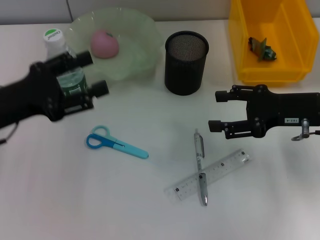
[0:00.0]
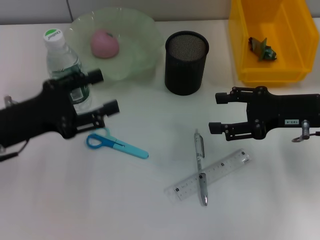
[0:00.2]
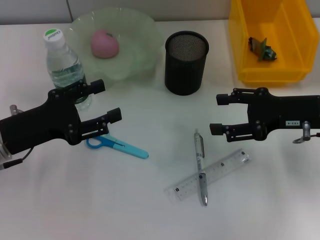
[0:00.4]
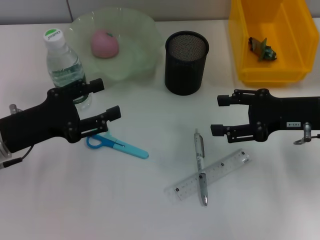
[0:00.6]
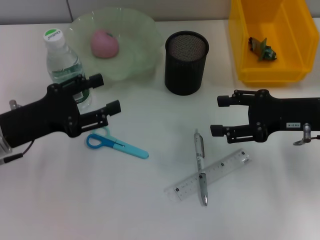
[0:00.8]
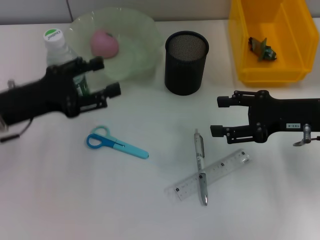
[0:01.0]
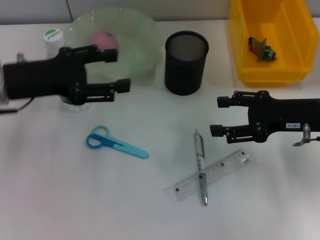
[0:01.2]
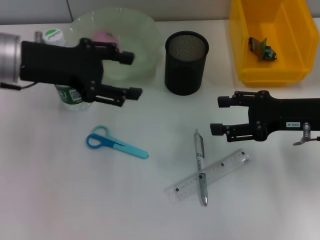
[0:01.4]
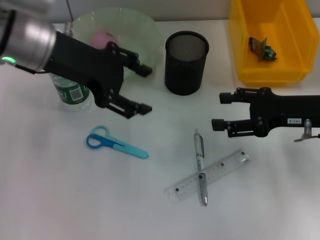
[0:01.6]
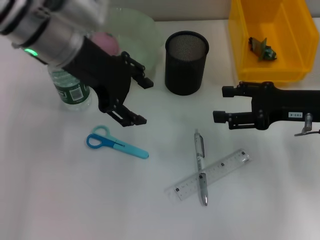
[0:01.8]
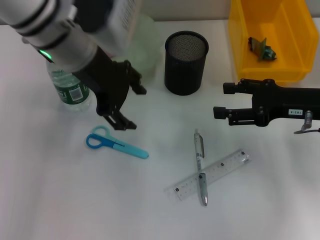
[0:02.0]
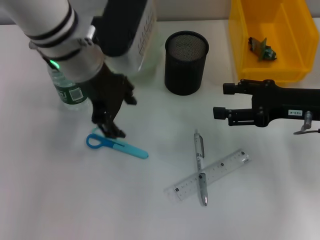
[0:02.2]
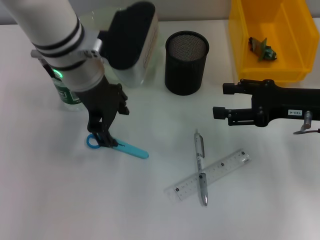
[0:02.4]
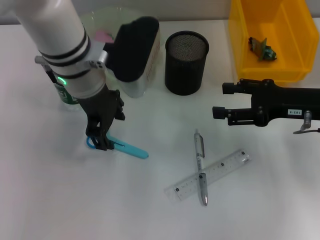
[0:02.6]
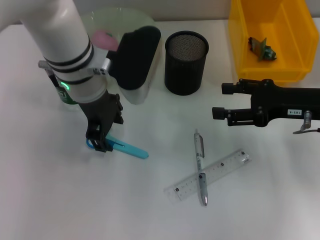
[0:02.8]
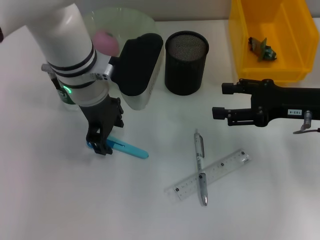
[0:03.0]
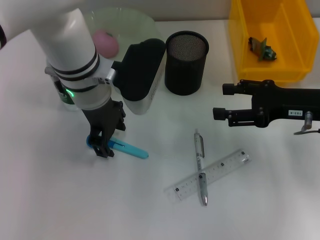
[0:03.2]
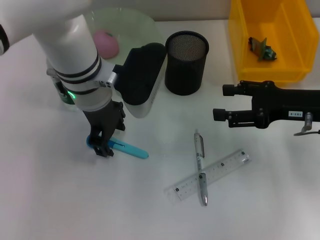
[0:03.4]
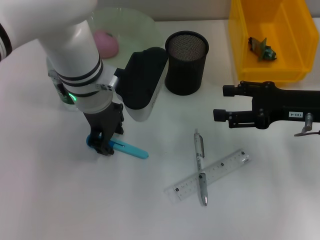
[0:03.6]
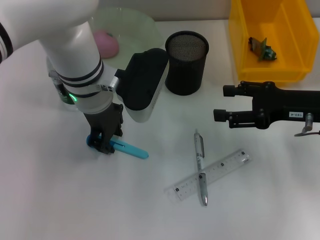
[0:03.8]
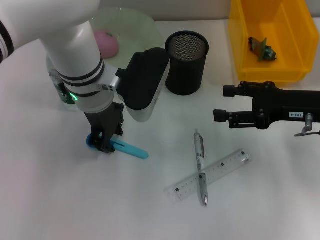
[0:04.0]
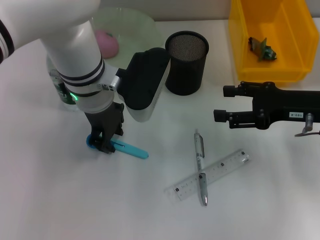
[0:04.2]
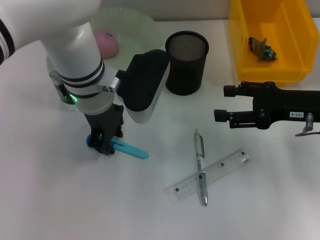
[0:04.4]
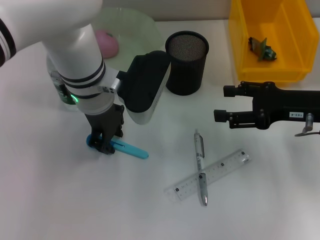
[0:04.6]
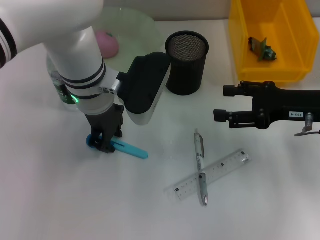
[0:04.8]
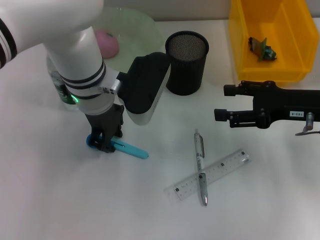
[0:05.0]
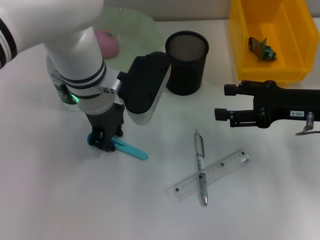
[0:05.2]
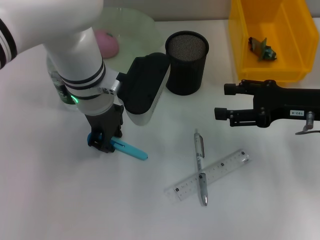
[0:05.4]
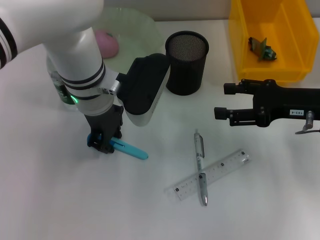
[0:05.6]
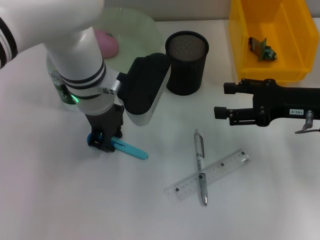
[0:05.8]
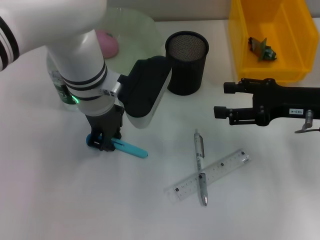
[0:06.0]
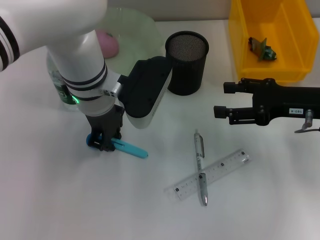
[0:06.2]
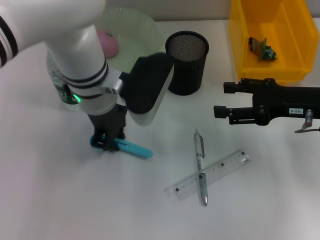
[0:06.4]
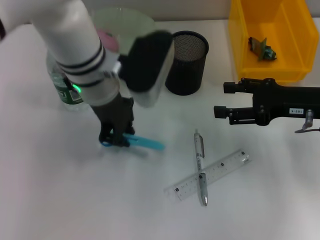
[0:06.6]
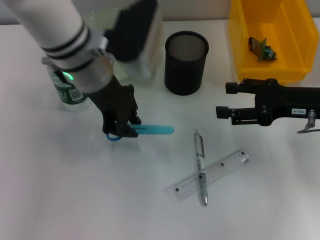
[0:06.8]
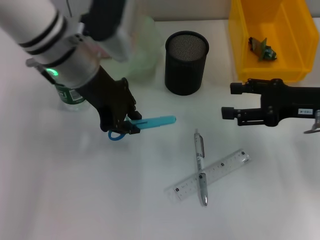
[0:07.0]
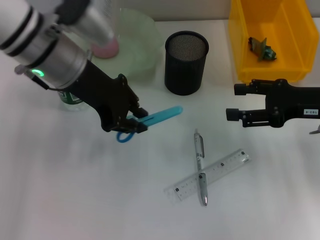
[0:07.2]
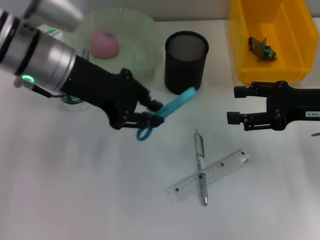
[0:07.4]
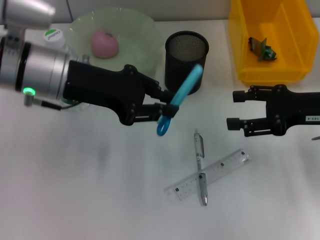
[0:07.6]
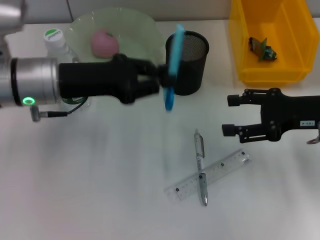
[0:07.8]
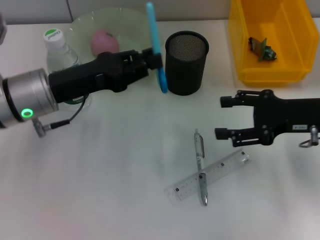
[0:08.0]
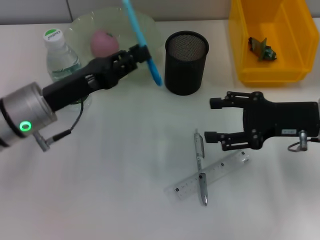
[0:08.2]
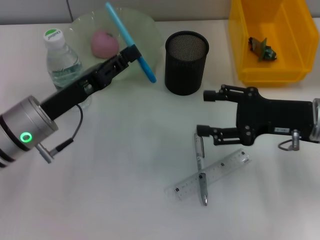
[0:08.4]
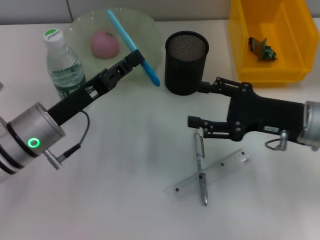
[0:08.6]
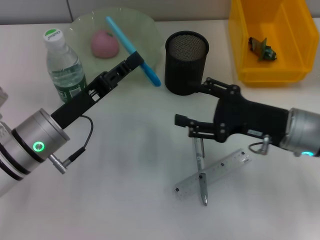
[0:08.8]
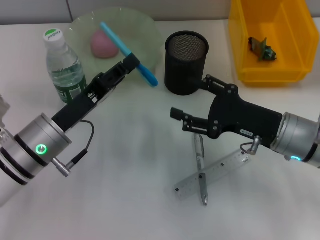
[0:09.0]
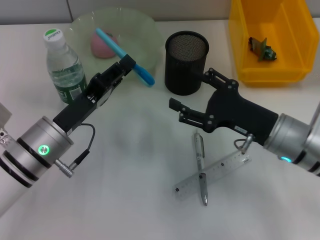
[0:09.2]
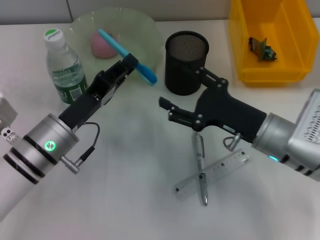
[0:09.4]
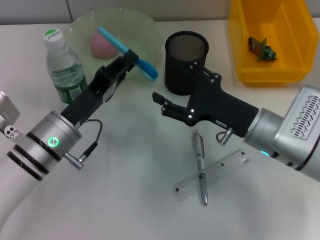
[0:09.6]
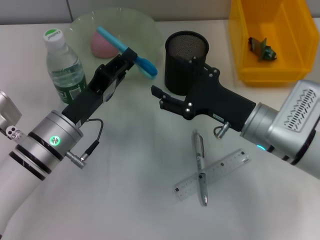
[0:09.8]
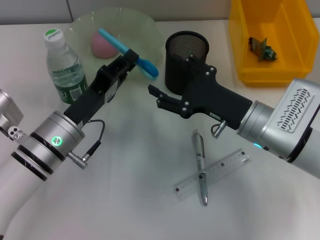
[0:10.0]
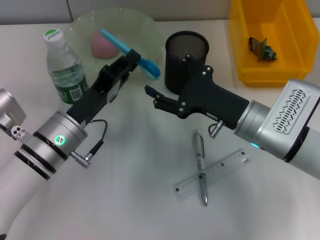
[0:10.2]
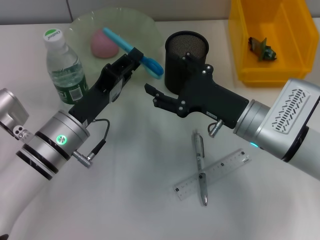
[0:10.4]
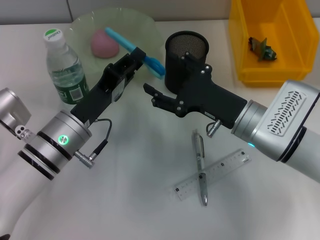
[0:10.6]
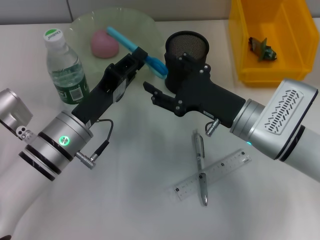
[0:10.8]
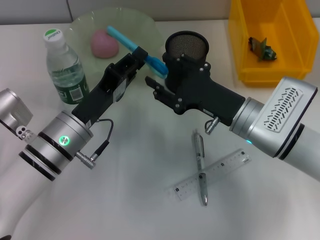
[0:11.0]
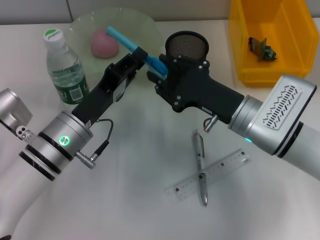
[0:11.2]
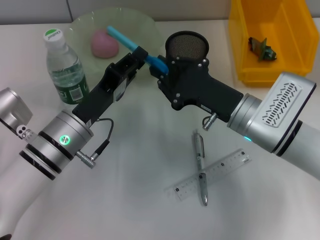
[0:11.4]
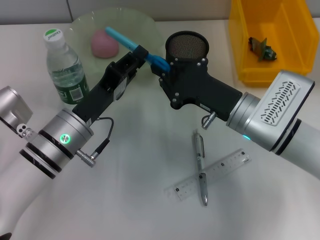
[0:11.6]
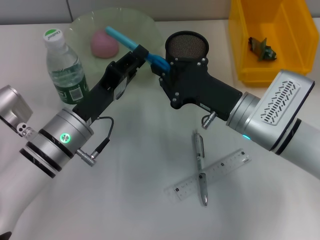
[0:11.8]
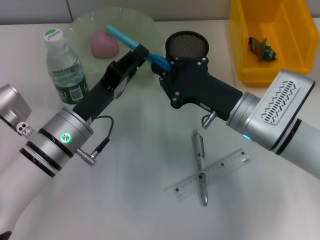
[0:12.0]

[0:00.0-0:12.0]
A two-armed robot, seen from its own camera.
Step, 0:00.0 to 0:05.2: Grab the blue scissors with the left hand.
0:00.0 to 0:01.6: The left gripper moves upward, to the right and forward, approximately 15 cm.
0:01.6 to 0:03.0: The left gripper travels to the right and downward by some 10 cm.
0:03.0 to 0:04.4: The left gripper closes up.
0:04.4 to 0:06.0: The two grippers keep their place.
0:06.0 to 0:07.6: The left gripper heads to the left, covering approximately 10 cm.
0:07.6 to 0:09.0: The left gripper is displaced downward and backward by roughly 15 cm. The right gripper goes roughly 10 cm to the left and downward.
0:09.0 to 0:10.4: The right gripper travels to the left by some 5 cm.
0:10.4 to 0:12.0: The right gripper closes up.

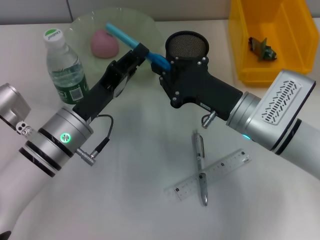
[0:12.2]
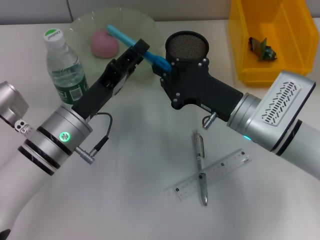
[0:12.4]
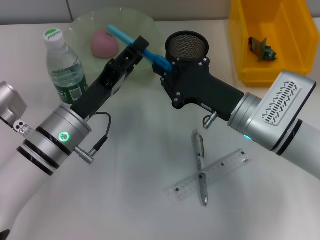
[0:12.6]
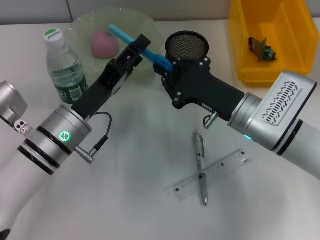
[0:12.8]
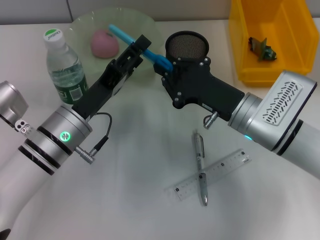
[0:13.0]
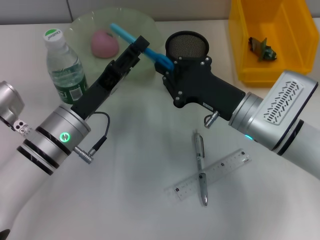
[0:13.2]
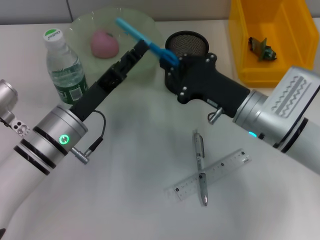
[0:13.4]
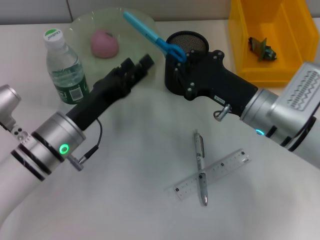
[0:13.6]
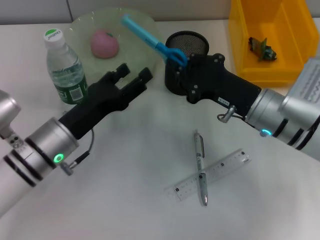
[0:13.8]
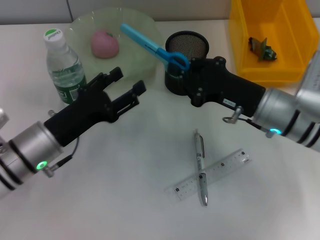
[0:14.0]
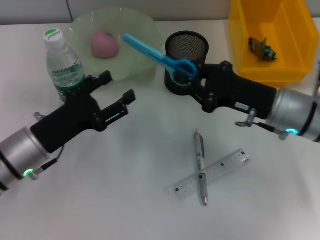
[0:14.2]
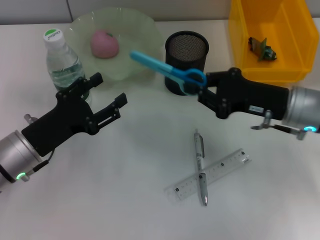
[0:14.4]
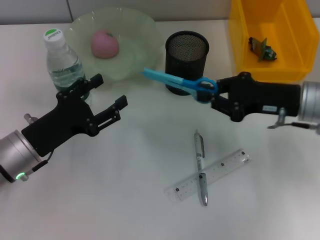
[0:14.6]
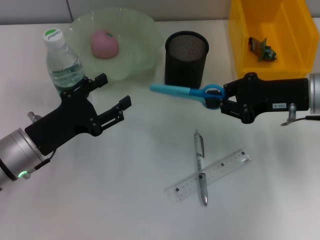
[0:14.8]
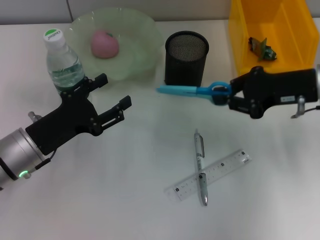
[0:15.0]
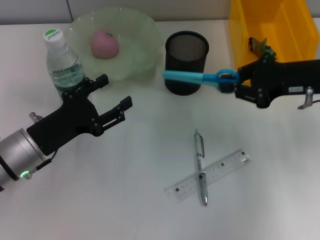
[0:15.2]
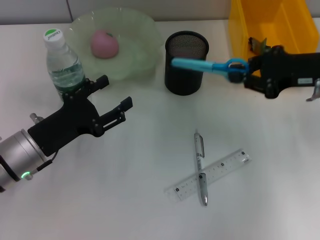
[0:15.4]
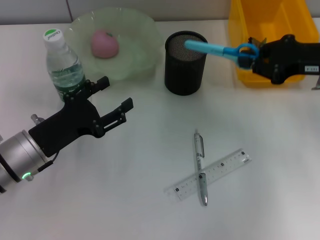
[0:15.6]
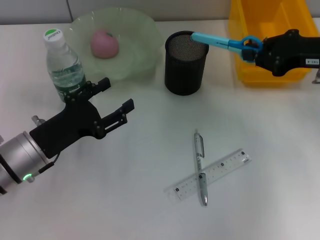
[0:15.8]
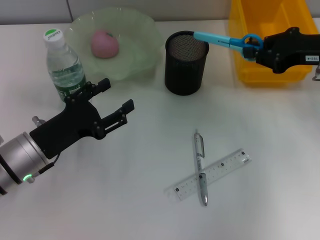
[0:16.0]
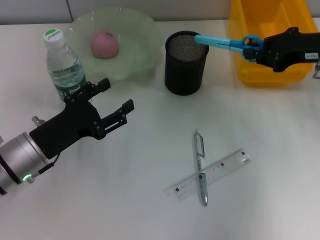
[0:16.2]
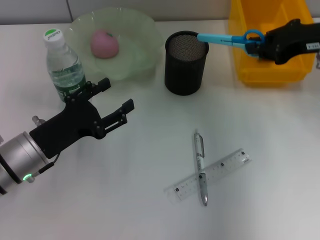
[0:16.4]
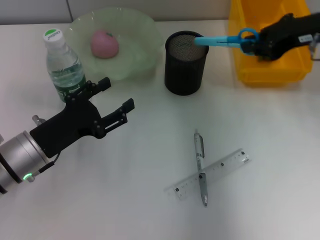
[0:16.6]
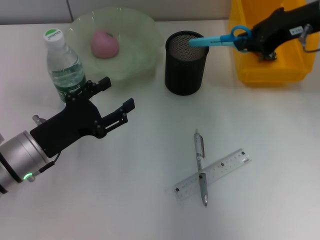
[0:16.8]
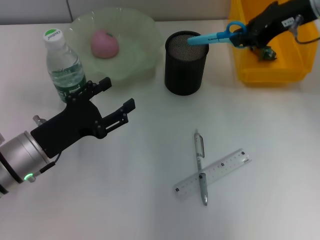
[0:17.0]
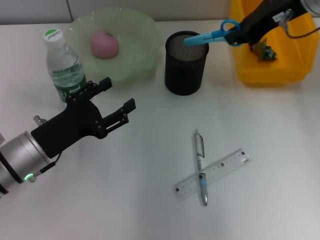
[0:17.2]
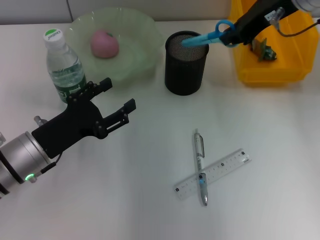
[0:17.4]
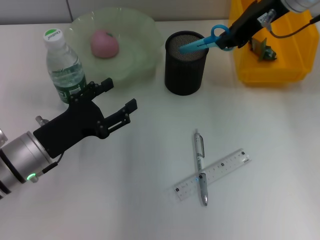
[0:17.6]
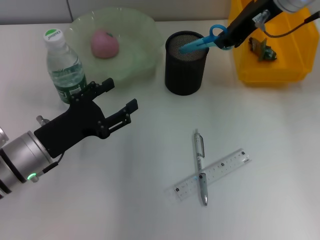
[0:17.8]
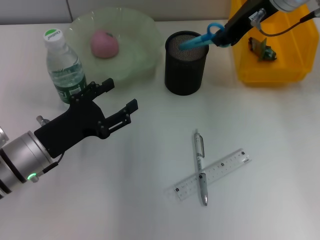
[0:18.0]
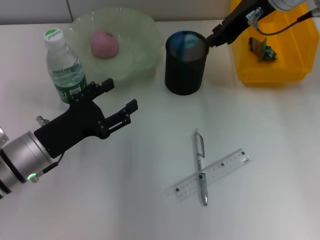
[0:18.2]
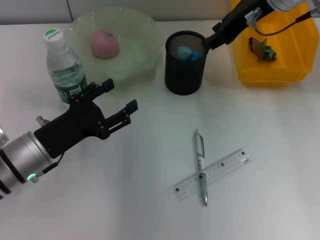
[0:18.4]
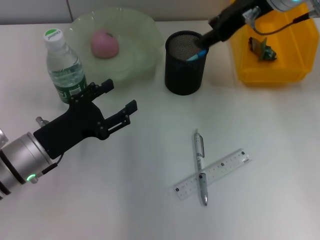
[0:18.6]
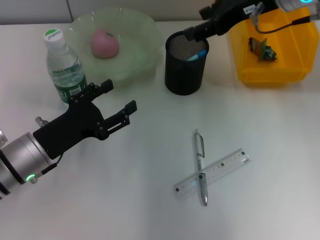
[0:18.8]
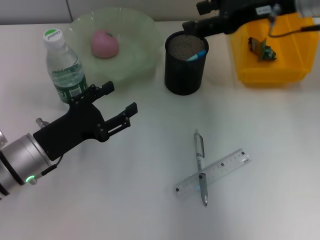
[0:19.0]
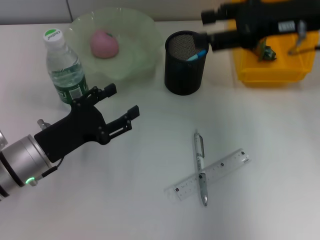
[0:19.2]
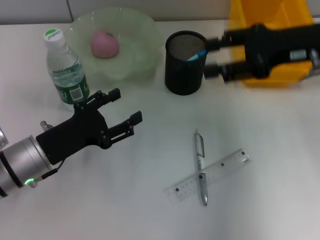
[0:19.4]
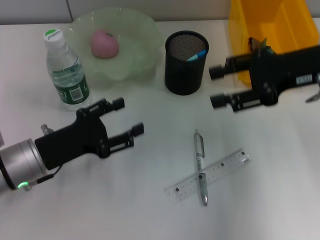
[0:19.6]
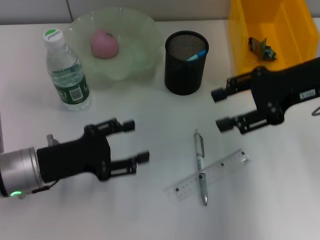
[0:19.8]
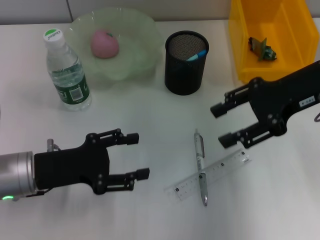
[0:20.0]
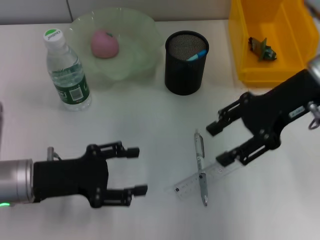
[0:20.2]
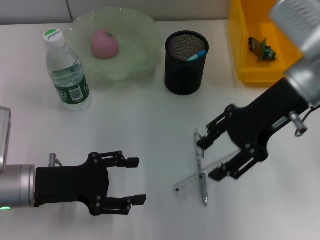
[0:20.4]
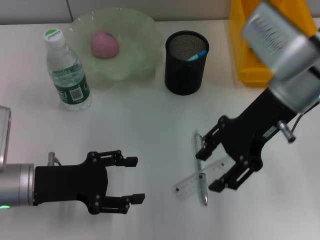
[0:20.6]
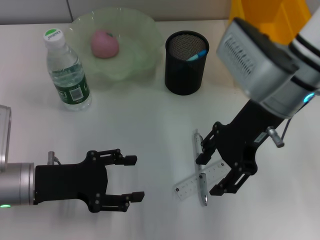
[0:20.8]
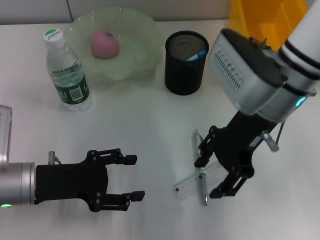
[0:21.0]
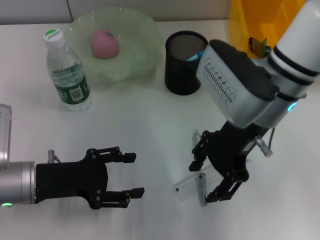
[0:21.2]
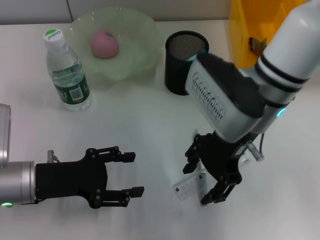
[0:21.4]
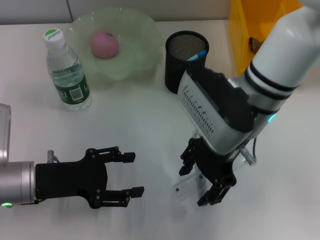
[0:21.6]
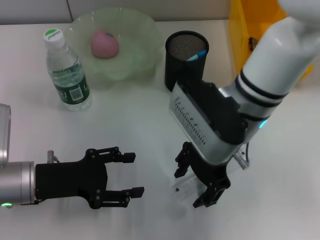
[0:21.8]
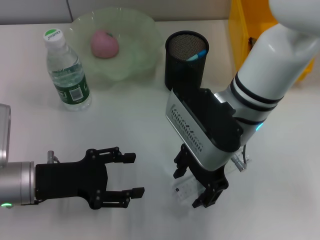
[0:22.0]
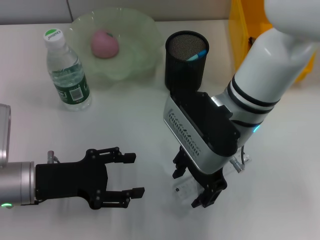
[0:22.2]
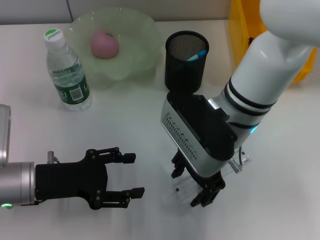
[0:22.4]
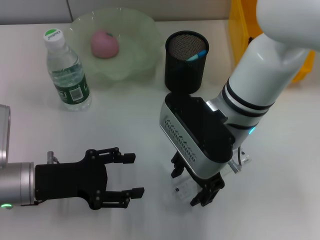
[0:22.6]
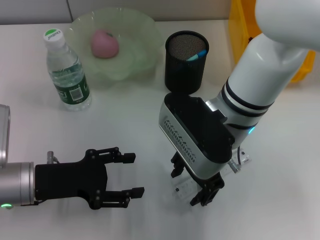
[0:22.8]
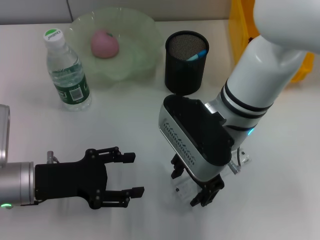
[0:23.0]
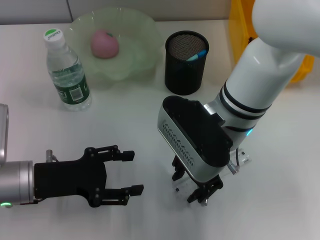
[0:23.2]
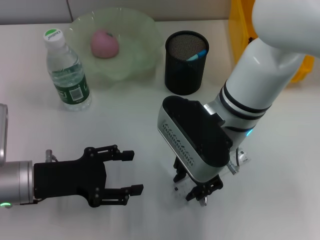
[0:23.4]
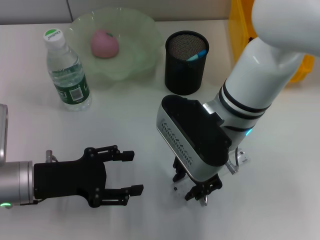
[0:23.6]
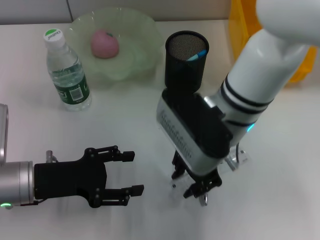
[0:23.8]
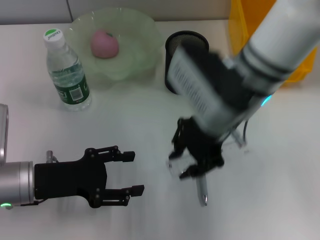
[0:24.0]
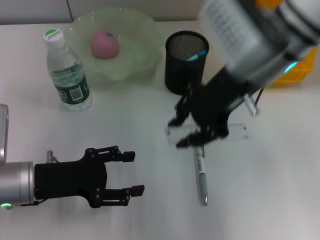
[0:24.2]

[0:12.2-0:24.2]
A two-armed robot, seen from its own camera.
Step, 0:13.6 to 0:18.8: Place the blue scissors into the pen holder with the right hand.
Step, 0:19.0 to 0:23.8: Grab the ruler with the right hand.
0:12.2 to 0:13.8: The left gripper opens up.
0:13.8 to 0:15.2: The right gripper moves to the right and upward, some 10 cm.
0:15.2 to 0:16.6: The right gripper moves upward, approximately 5 cm.
0:16.6 to 0:18.2: The right gripper shifts roughly 10 cm to the left.
0:18.2 to 0:19.8: The right gripper is displaced backward, to the right and downward by roughly 15 cm, and opens.
0:19.8 to 0:21.2: The right gripper heads to the left, covering about 15 cm.
0:21.2 to 0:22.6: The right gripper changes place by roughly 5 cm.
0:22.6 to 0:24.2: The right gripper goes about 10 cm upward, and closes up.
